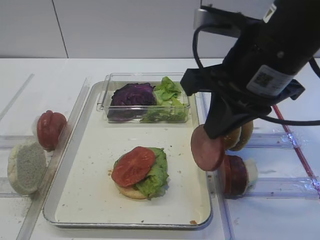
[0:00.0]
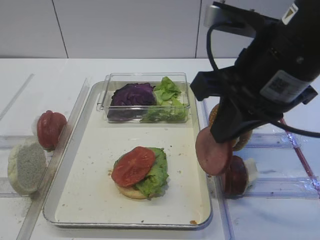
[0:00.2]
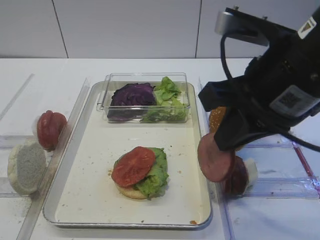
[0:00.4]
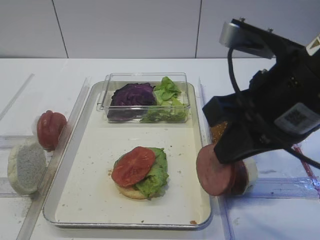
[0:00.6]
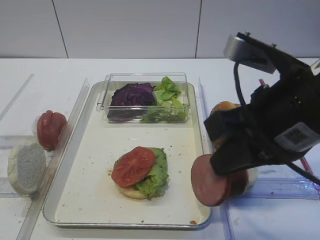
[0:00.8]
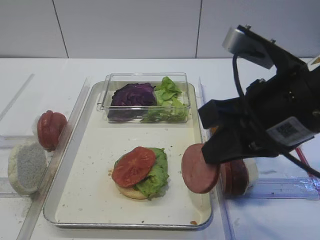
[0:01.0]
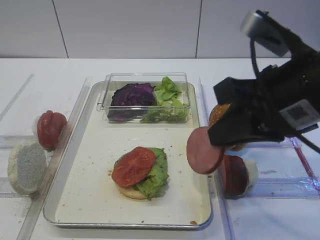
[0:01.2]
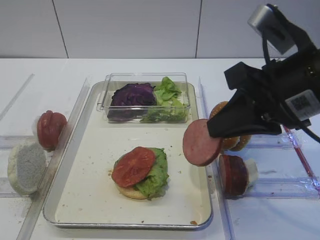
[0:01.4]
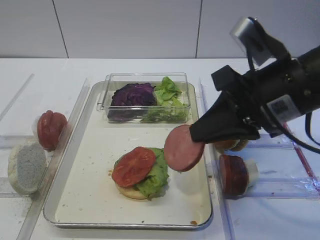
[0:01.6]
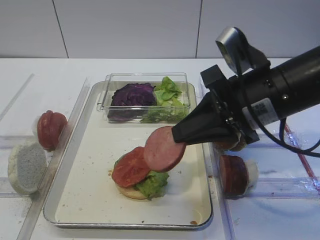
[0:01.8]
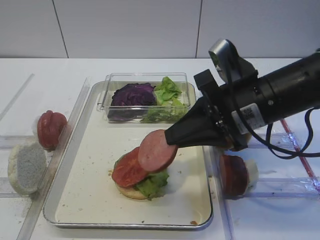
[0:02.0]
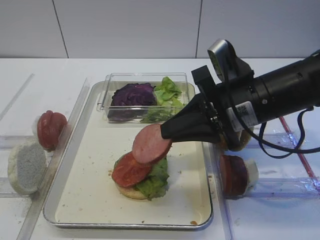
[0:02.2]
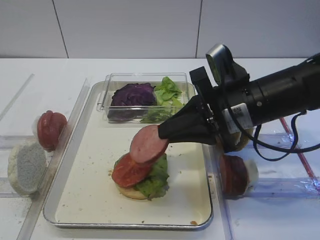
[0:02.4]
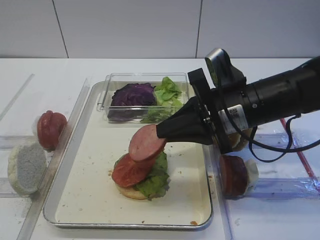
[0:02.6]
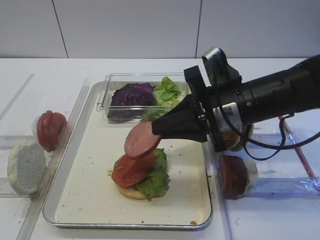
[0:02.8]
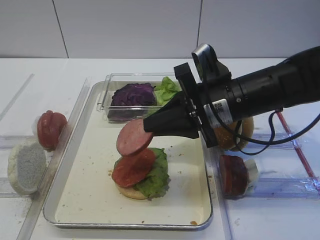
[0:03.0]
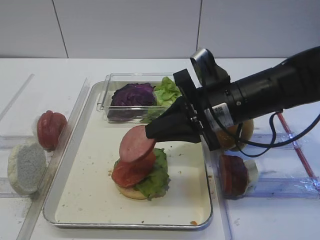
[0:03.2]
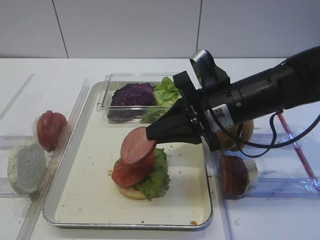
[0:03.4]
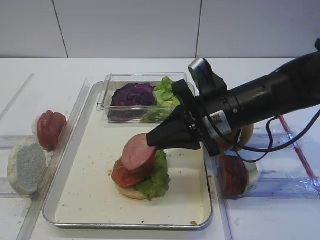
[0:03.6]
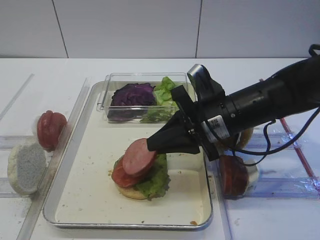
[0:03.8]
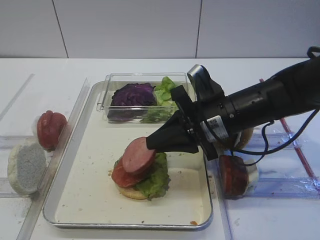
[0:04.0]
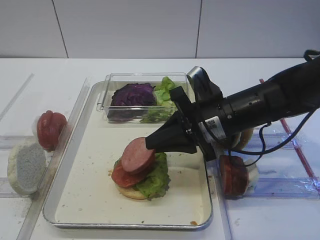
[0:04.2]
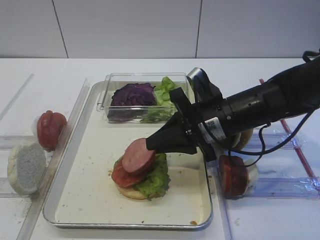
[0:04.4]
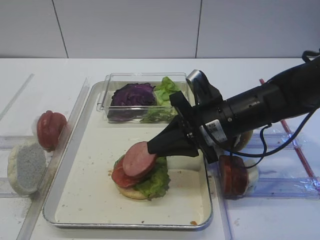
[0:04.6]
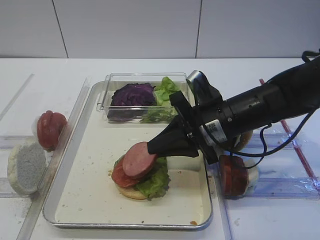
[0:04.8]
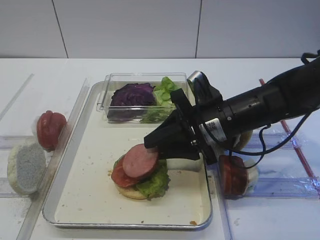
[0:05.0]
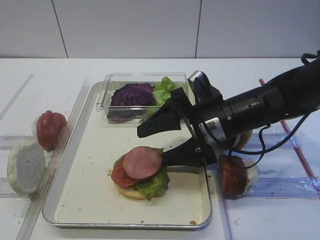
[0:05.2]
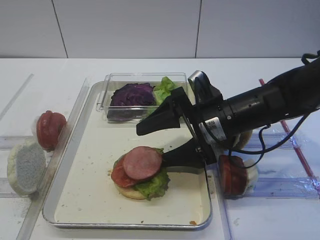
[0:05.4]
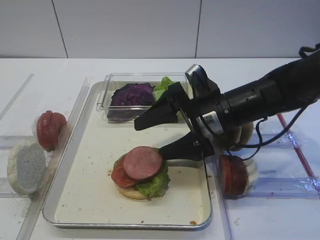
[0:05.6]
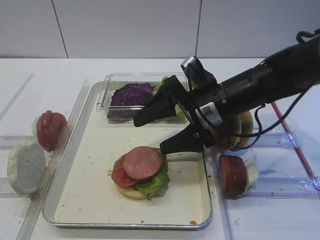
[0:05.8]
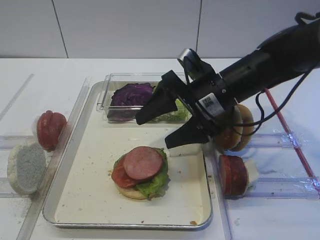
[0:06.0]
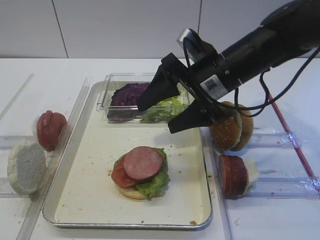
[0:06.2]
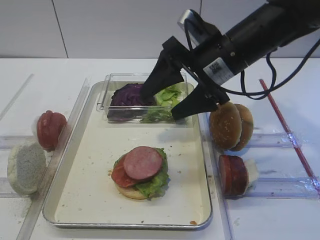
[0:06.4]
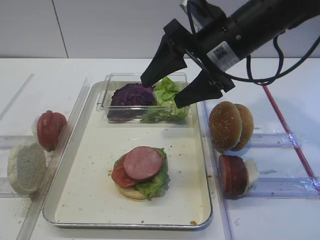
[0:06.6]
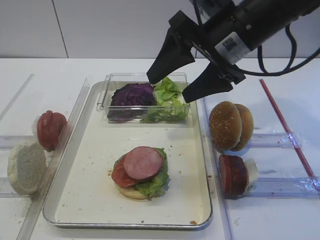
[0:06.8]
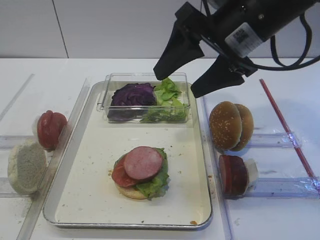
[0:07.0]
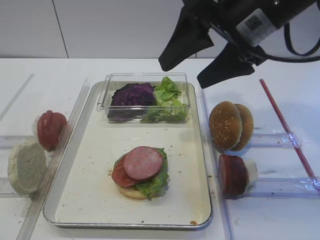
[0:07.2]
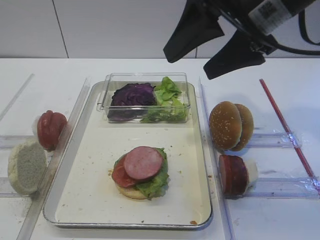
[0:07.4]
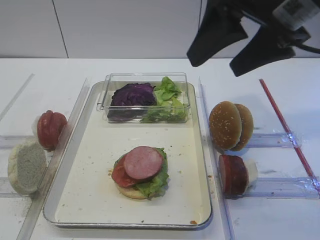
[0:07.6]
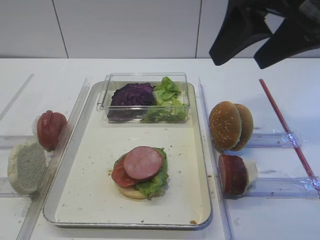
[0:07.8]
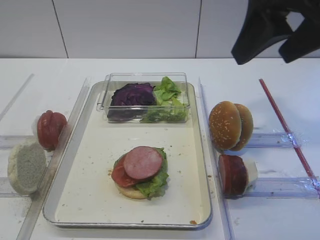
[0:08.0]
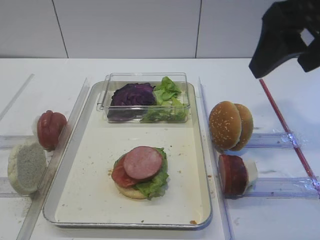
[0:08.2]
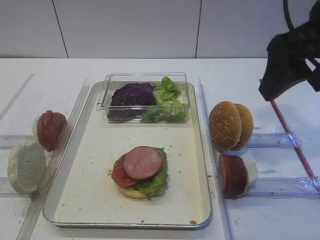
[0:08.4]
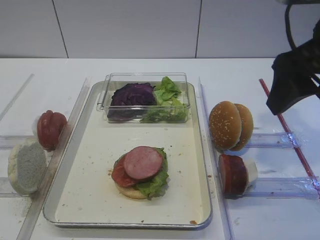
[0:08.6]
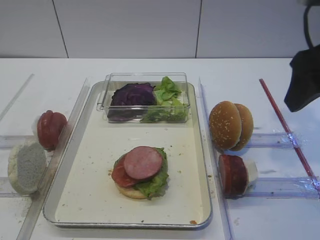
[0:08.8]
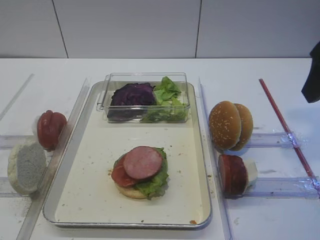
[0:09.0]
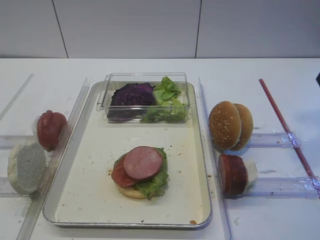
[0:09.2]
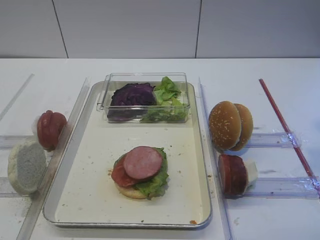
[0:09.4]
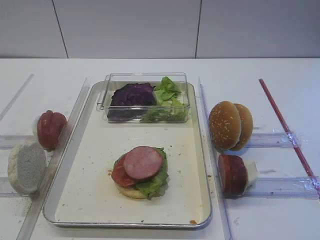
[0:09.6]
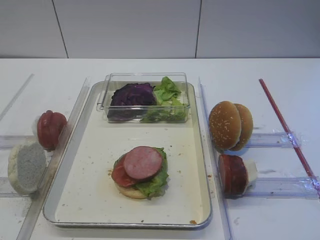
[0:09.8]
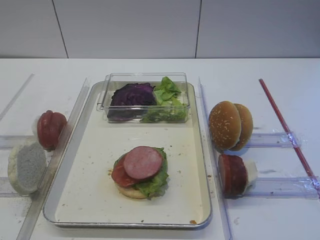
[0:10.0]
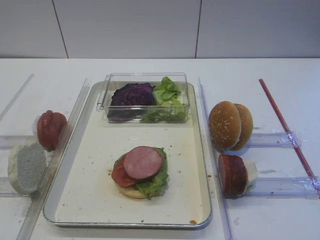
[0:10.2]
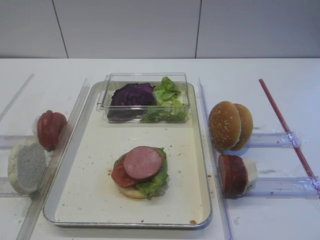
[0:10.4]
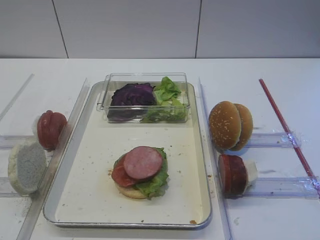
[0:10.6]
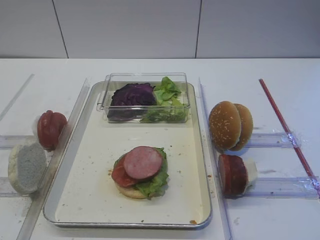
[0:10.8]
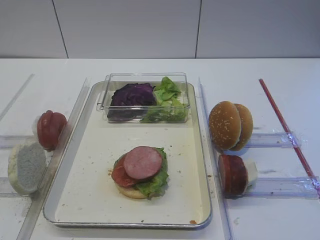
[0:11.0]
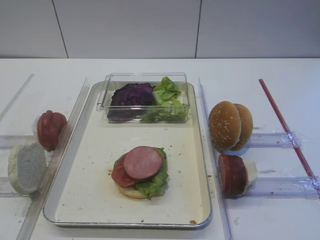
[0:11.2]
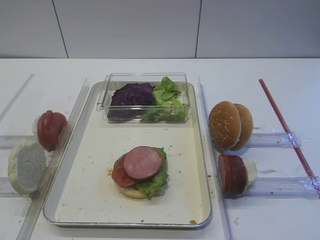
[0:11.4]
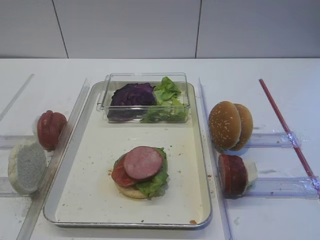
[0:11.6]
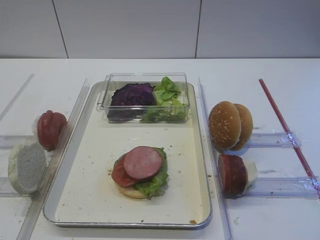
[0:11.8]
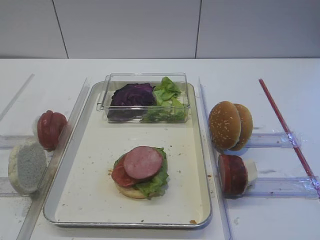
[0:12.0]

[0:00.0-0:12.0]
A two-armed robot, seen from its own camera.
Step, 0:00.0 to 0:06.0: Place the cutlet on the tomato slice with the right gripper.
0:00.0 to 0:01.6: The right gripper shifts by about 5 cm.
0:01.6 to 0:03.0: The right gripper goes about 10 cm downward and forward.
0:03.0 to 0:04.4: The grippers make only small movements.
0:04.4 to 0:06.0: The right gripper opens up.
0:06.0 to 0:07.6: The right gripper travels upward by some 15 cm.
0:07.6 to 0:09.0: The right gripper heads to the right, covering roughly 10 cm.
0:09.0 to 0:10.4: The right gripper heads backward and upward, covering some 20 cm.

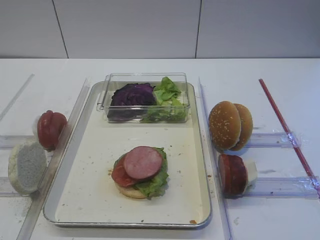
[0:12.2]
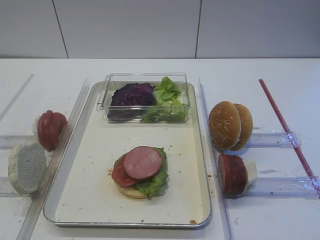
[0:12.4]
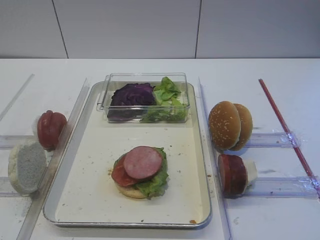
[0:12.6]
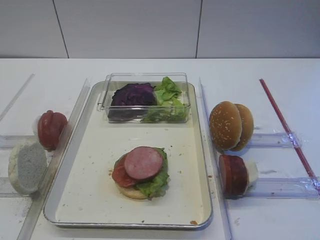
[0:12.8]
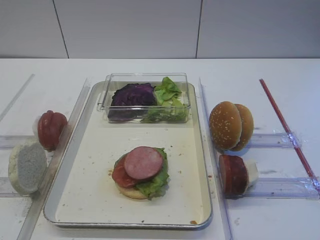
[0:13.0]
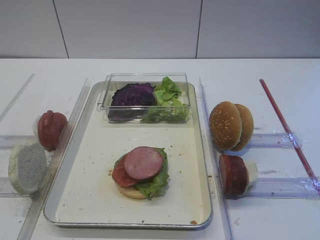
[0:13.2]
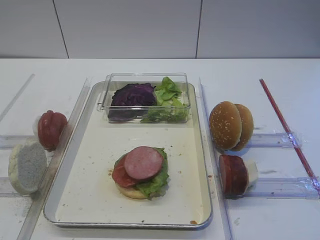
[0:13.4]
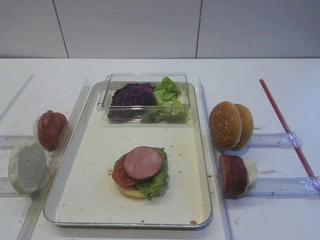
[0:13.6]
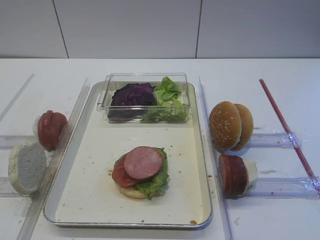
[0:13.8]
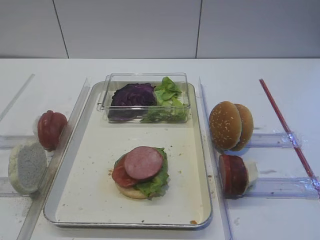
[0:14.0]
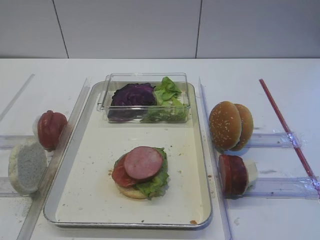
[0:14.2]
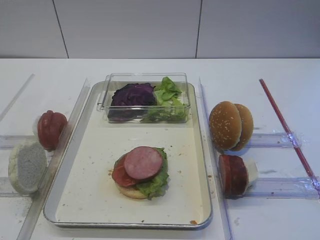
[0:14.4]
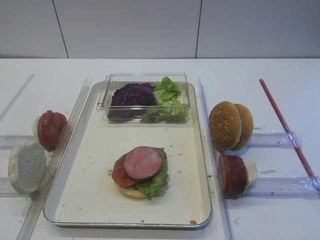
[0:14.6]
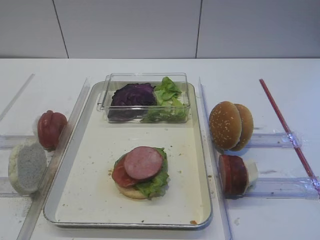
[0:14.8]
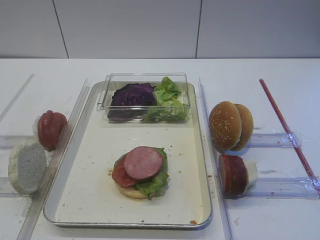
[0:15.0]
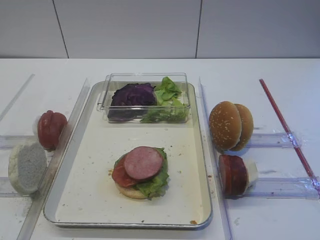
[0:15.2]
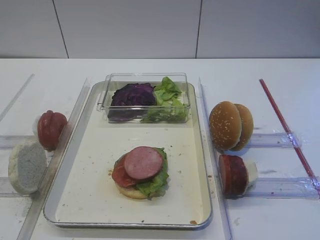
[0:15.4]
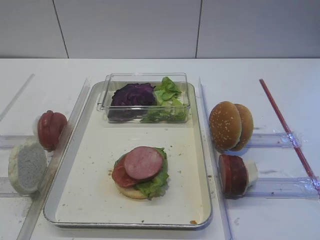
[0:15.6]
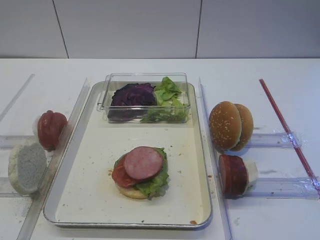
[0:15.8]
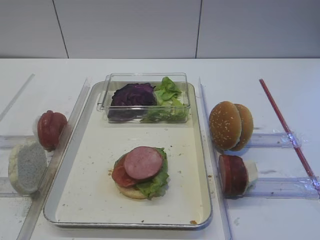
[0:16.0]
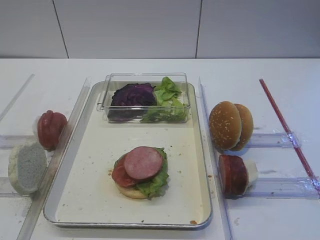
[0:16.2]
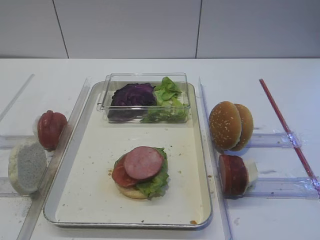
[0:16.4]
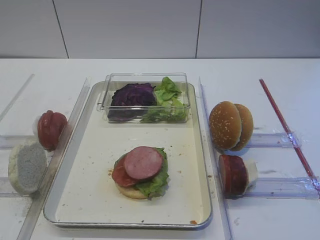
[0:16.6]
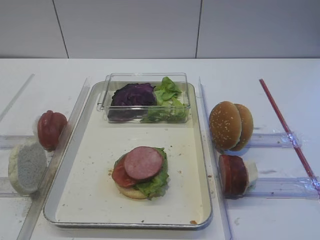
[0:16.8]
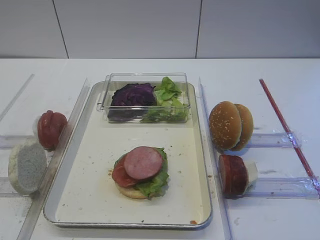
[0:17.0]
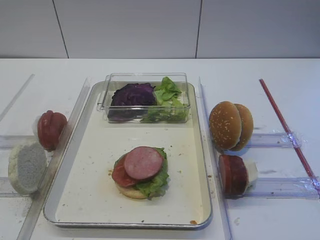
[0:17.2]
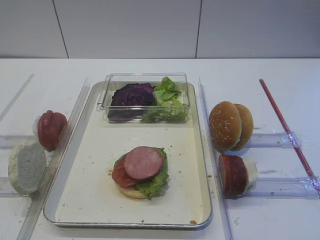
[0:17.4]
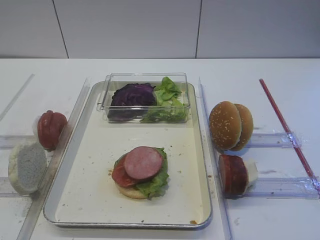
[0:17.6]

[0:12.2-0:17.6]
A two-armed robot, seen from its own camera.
0:12.2 to 0:17.6: Both grippers stay put.

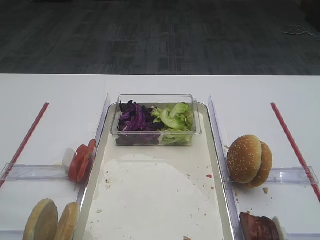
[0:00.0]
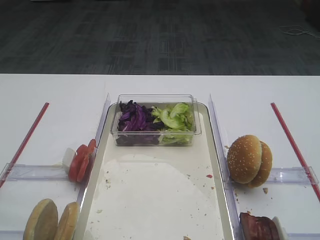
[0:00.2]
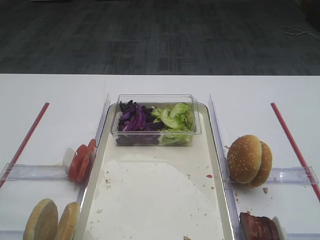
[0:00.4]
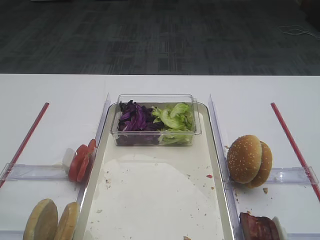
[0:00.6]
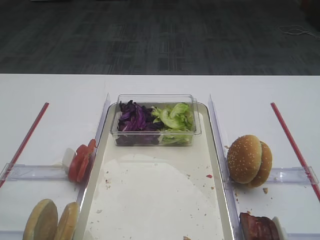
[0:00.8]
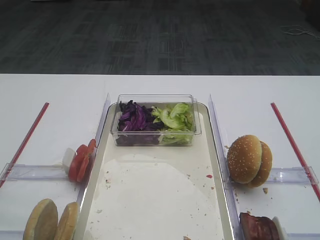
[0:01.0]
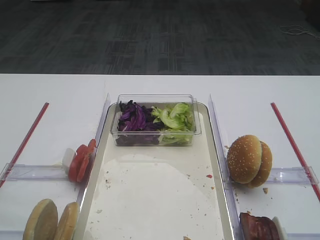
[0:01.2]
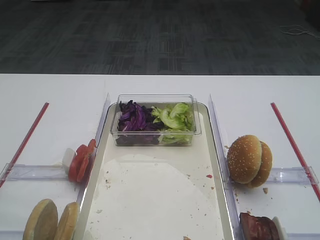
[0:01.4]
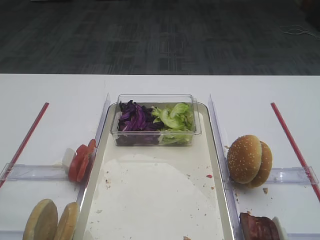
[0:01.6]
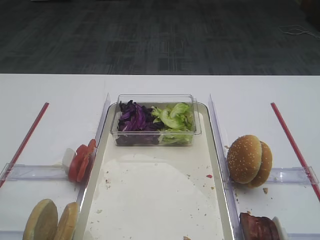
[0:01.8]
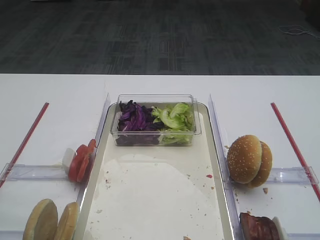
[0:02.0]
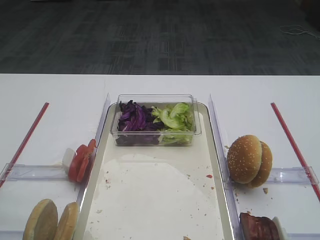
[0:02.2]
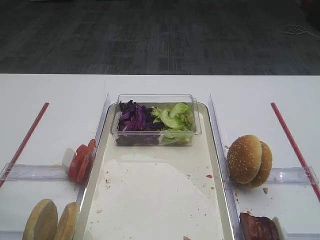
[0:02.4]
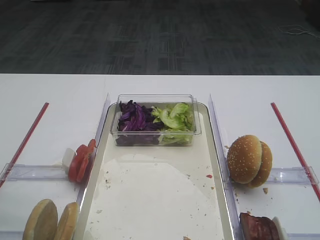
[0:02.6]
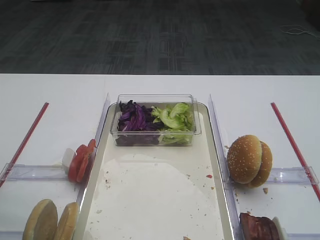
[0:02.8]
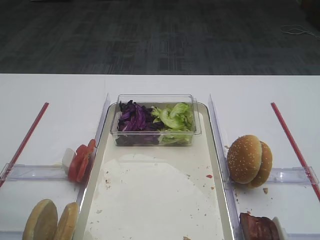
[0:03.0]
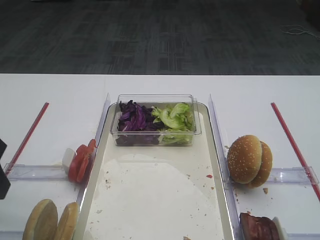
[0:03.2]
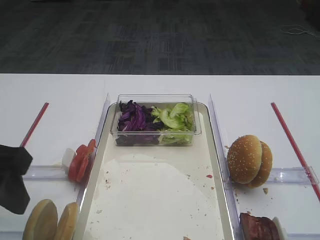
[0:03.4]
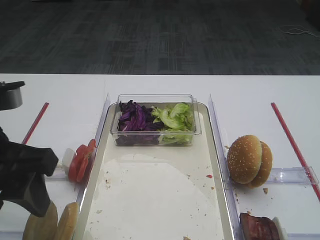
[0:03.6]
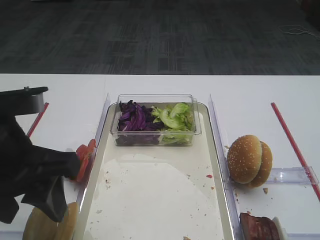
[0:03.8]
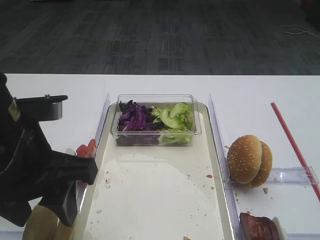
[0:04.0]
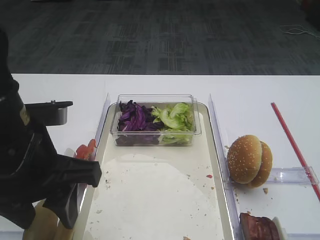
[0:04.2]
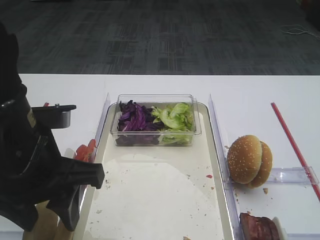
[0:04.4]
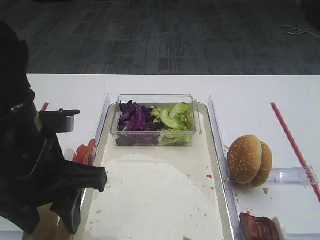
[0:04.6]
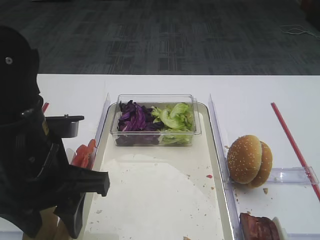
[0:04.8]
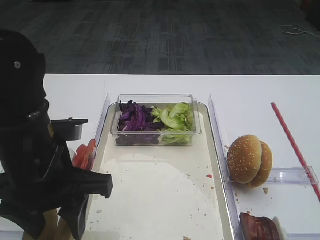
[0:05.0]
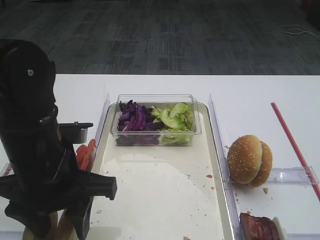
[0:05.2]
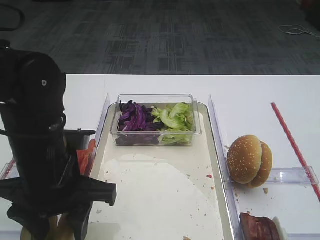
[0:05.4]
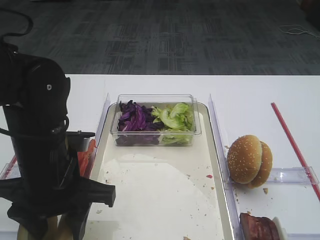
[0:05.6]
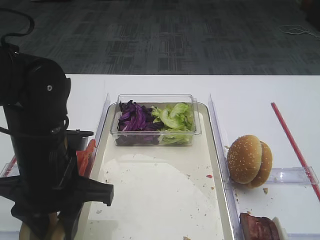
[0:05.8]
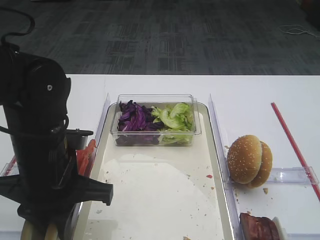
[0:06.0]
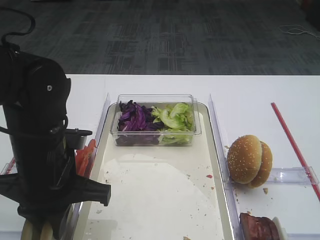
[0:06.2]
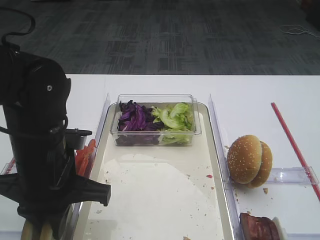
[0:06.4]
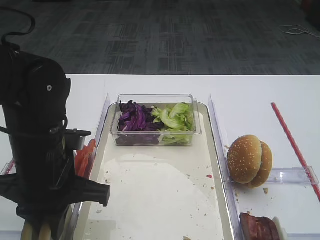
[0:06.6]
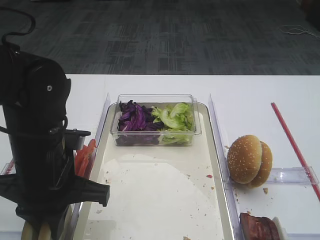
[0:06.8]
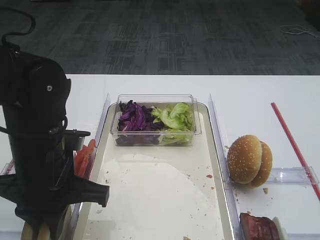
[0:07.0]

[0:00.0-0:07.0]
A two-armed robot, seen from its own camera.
0:02.8 to 0:04.2: The left gripper travels to the right by about 10 cm.
0:04.2 to 0:05.6: The left gripper travels downward by some 5 cm.
0:05.6 to 0:07.0: The left gripper closes its fingers.
